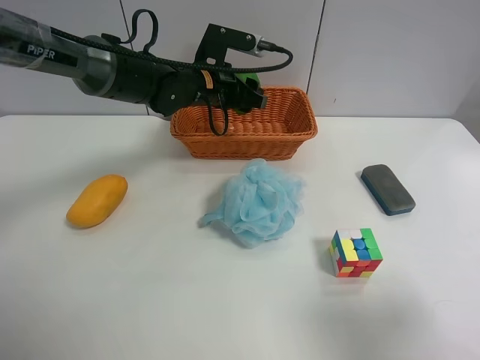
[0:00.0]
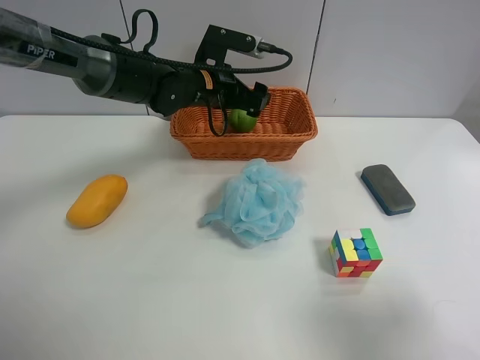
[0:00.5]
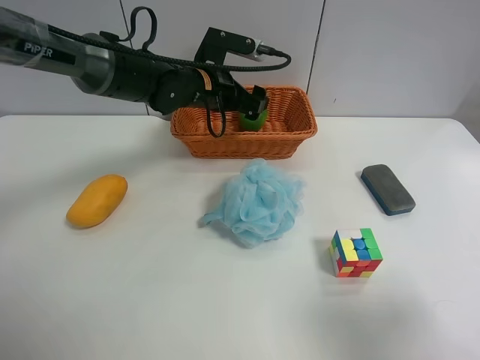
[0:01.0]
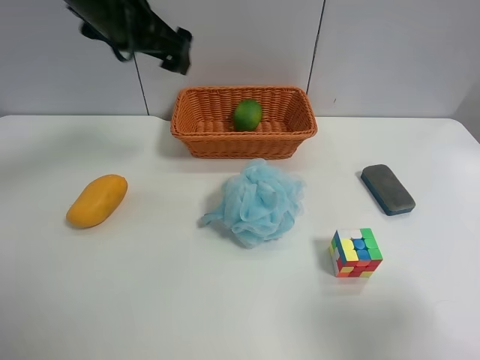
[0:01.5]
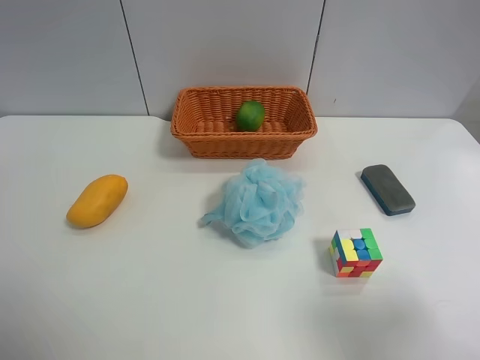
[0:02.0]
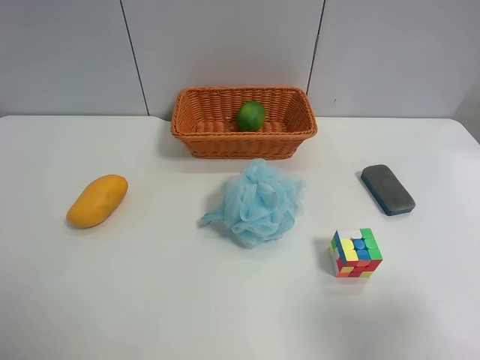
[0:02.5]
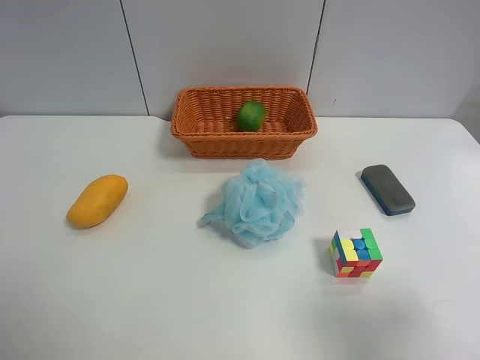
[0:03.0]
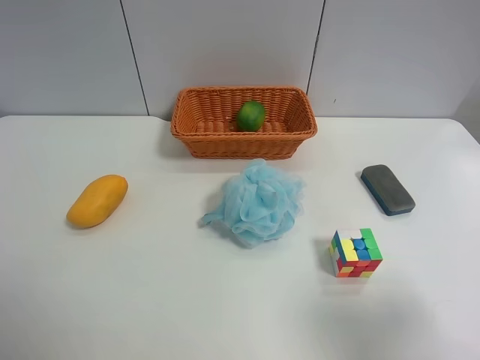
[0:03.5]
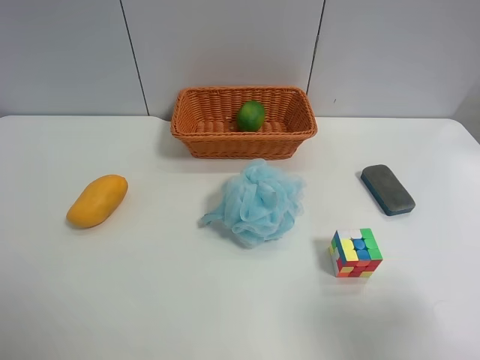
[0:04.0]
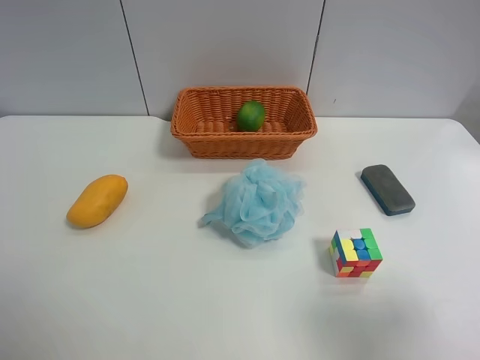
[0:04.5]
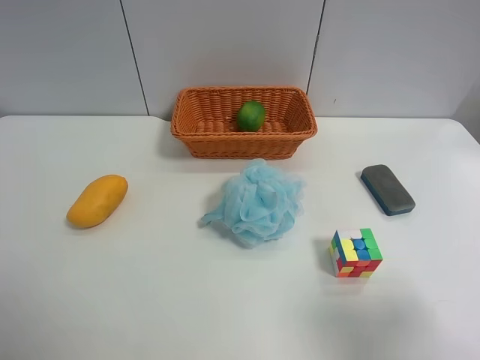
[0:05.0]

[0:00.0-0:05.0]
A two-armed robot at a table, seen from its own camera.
Task of the whole recording: Randomly grab green lemon or mangoes from the table and put them in a basket.
0:00.0 to 0:02.5: The left gripper heads backward, to the left and upward, covering about 50 cm, and opens.
